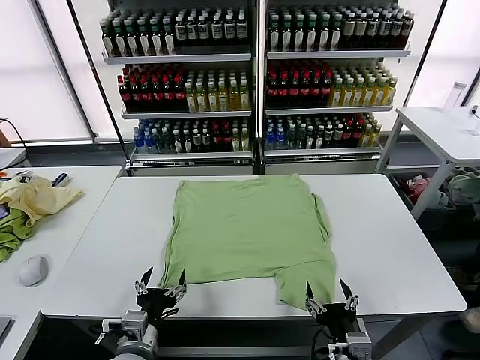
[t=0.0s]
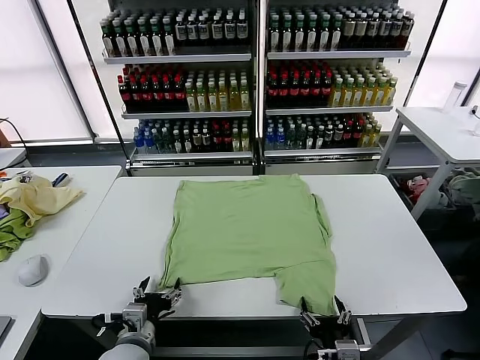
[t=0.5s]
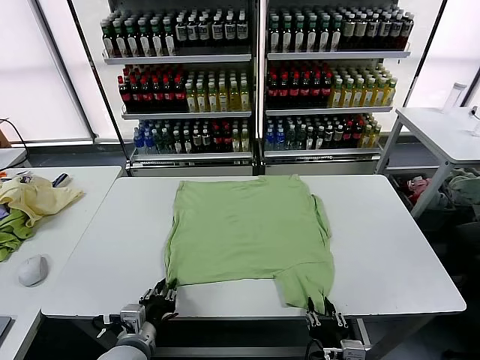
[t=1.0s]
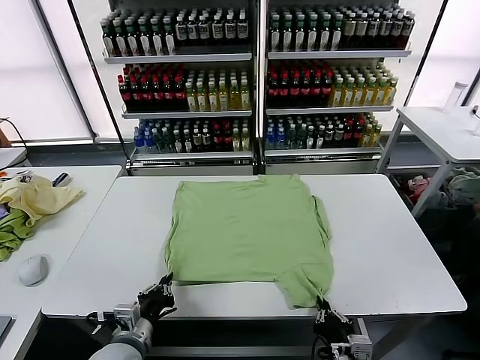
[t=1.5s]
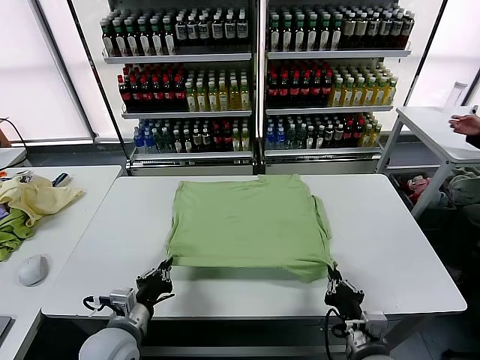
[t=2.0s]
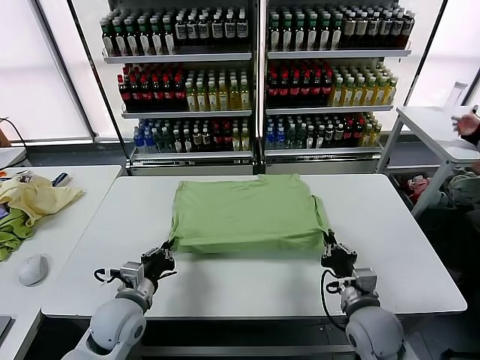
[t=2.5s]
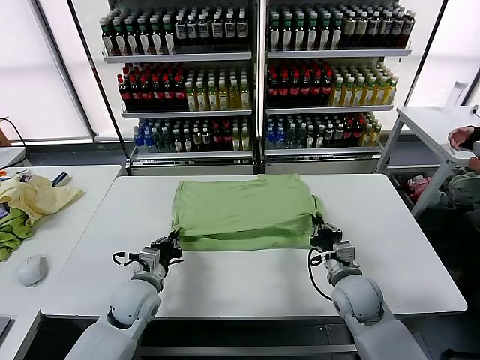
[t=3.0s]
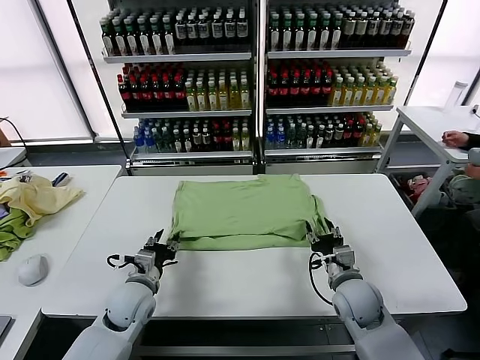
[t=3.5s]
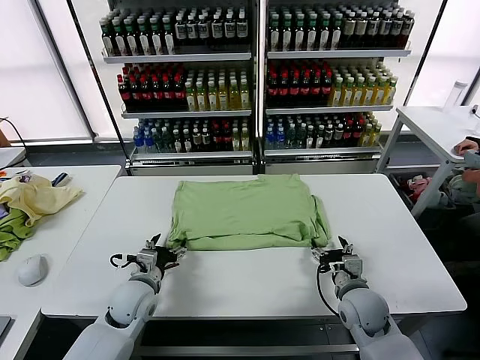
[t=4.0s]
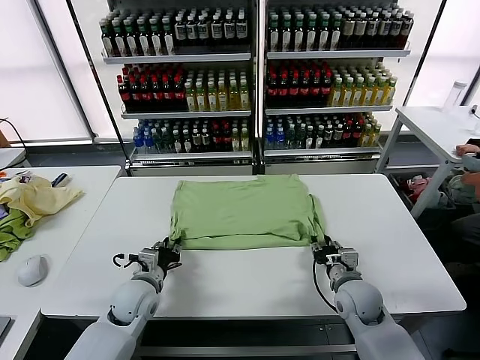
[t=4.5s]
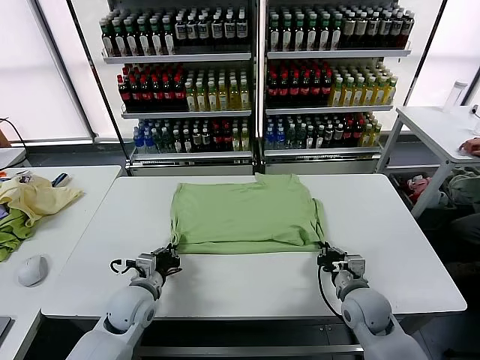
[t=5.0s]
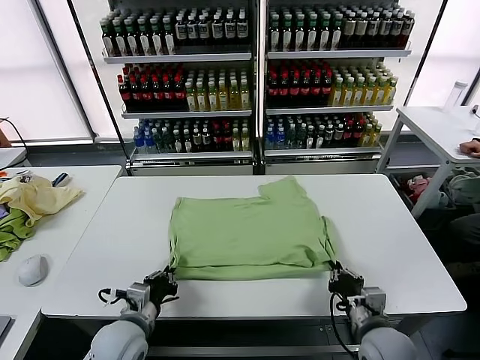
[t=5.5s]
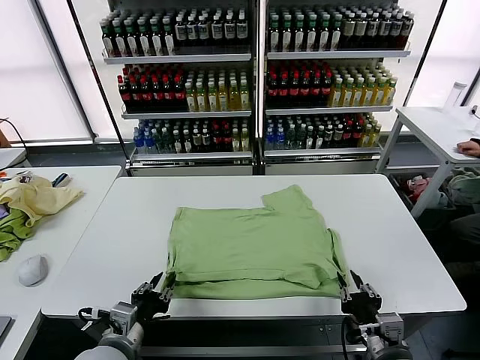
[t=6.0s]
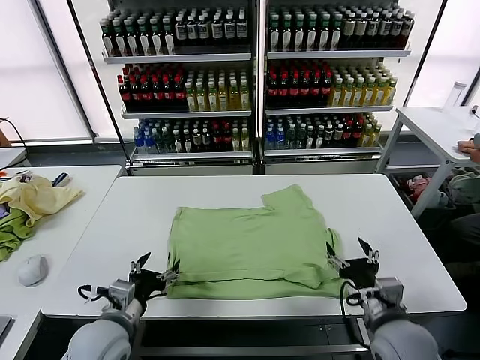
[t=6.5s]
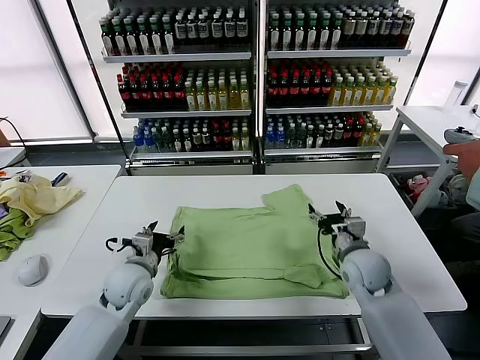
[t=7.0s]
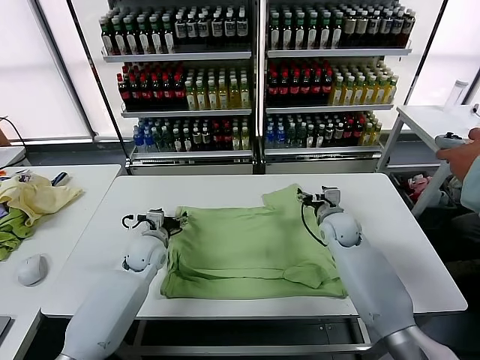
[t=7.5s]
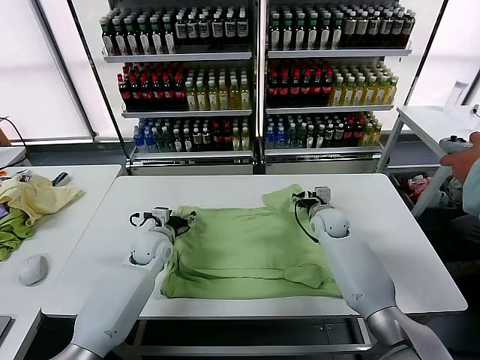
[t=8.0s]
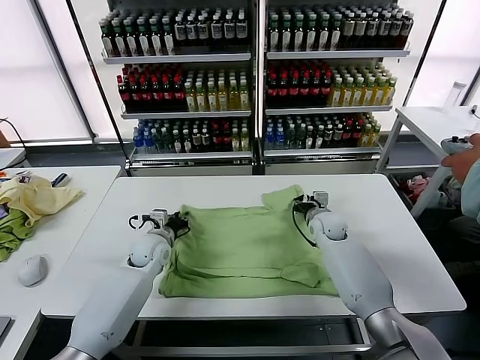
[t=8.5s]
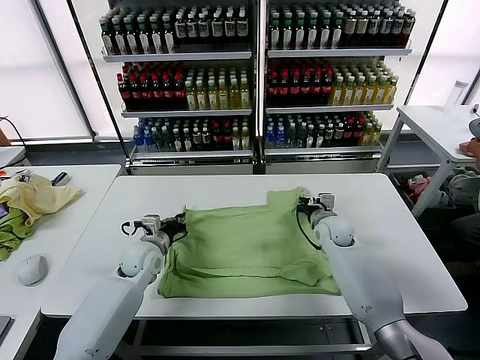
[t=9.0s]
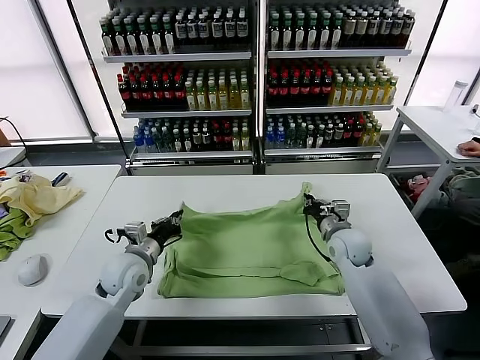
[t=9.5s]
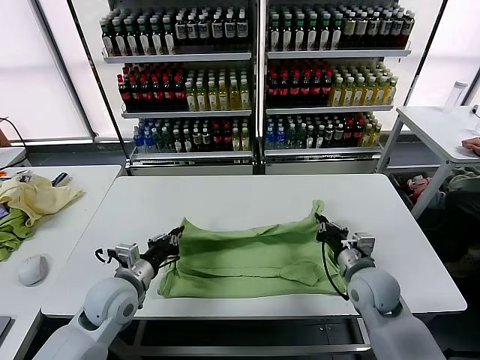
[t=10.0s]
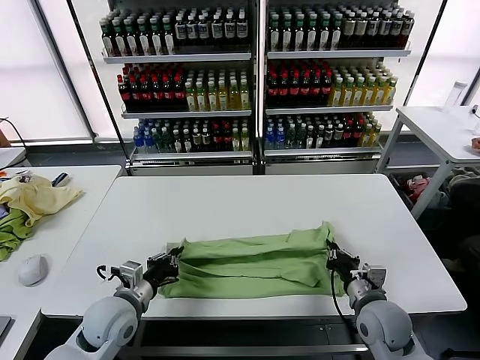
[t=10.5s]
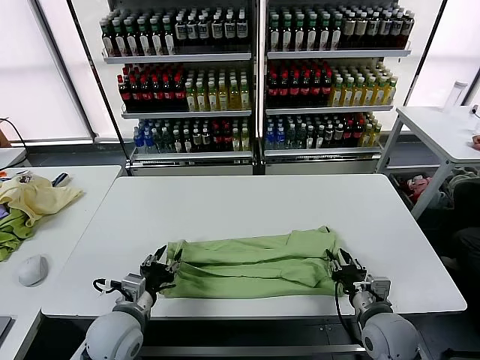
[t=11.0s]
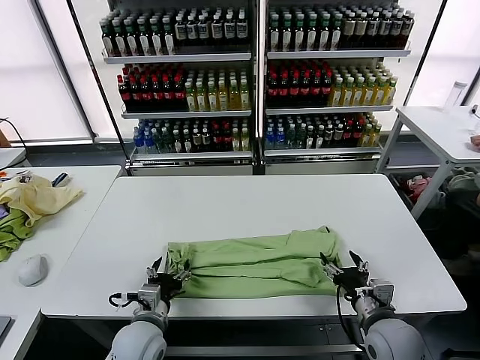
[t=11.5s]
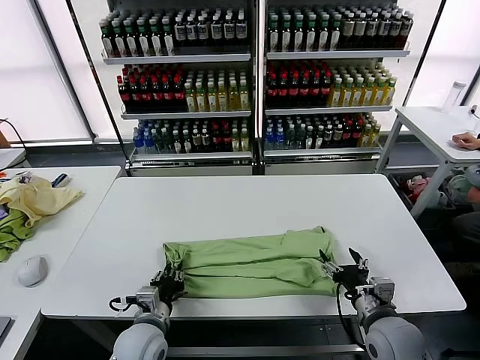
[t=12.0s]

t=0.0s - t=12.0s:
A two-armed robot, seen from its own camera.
Task of the whole recording: fold and organize the clothes.
Step, t=0.0s - t=1.0s: use both grippers simultaneously to clamp the lower edge of the clothing fabric.
Step, t=1.5s - t=3.5s: use both grippers to drag the lower edge of the fabric forward and fold it over the upper edge.
Step, t=4.0s - t=6.0s: Drag the clothes downward with both gripper.
Step, t=6.5s - t=8.5s: use both grippers simultaneously to clamp the upper edge of the clothing fabric.
Step, t=9.0s - t=11.0s: use both grippers to drag the upper edge of the fabric backward and fold it over the lower edge.
Step, t=11.5s - t=12.0s: use the left gripper to clamp the left edge of the fabric.
t=2.0s - t=4.0s: The grippers both shift forward by about 10 cm. The right gripper opens its fingers, while the left gripper opens up.
t=4.0s - t=6.0s: The left gripper travels backward by roughly 15 cm, and closes up. The right gripper heads backward and upward, covering about 20 cm, and closes and opens again.
t=6.0s - t=8.0s: Both grippers move forward, roughly 35 cm. The left gripper opens its fingers.
t=8.0s - t=10.0s: Both grippers move backward, roughly 20 cm. The right gripper closes its fingers. The left gripper closes its fingers.
t=10.0s - t=12.0s: The left gripper is displaced downward, backward and to the right by about 10 cm, and opens, then closes once more. The right gripper goes approximately 10 cm backward, and opens.

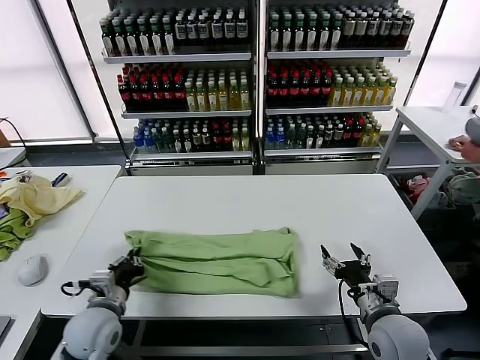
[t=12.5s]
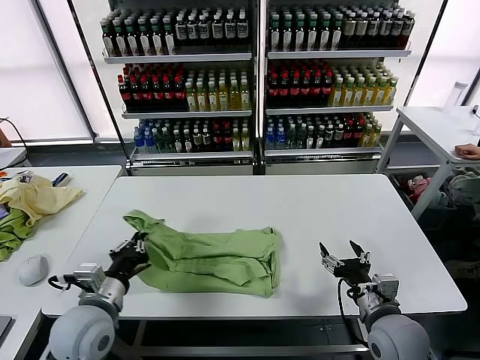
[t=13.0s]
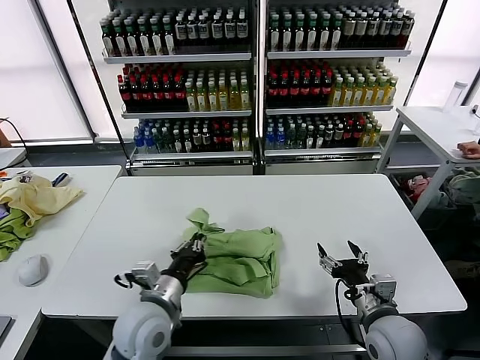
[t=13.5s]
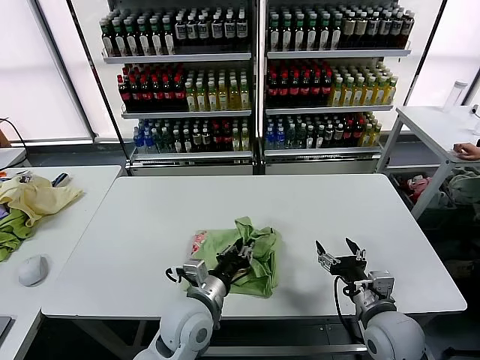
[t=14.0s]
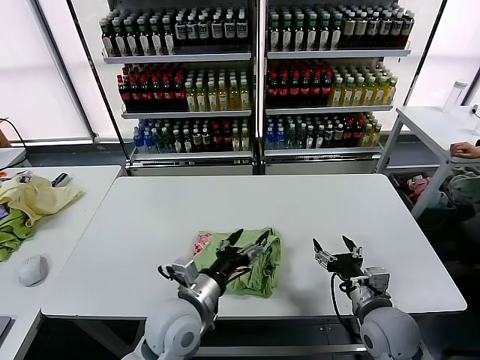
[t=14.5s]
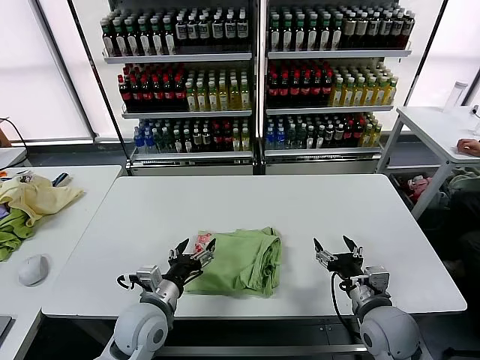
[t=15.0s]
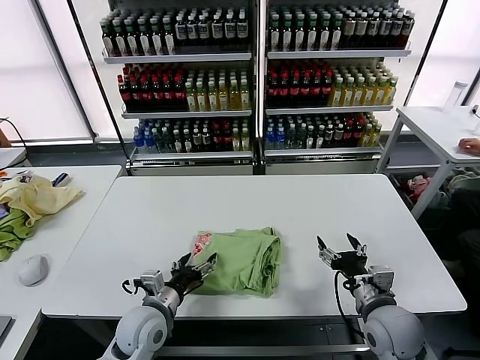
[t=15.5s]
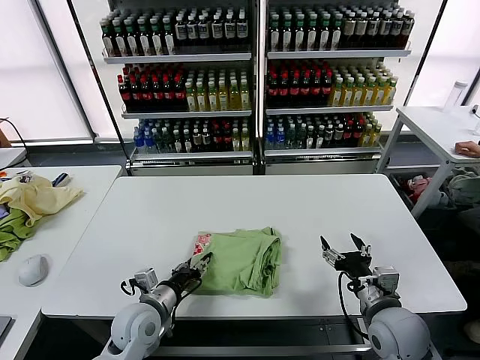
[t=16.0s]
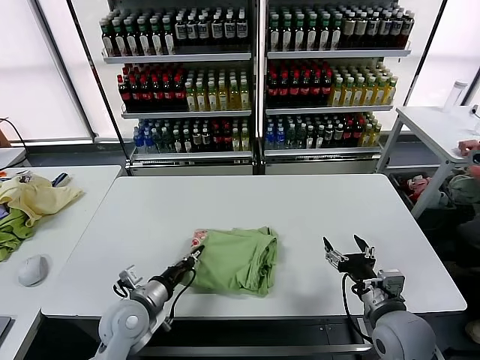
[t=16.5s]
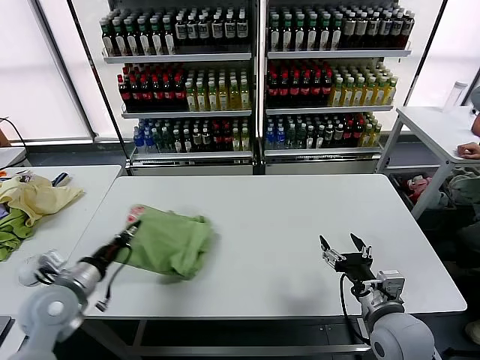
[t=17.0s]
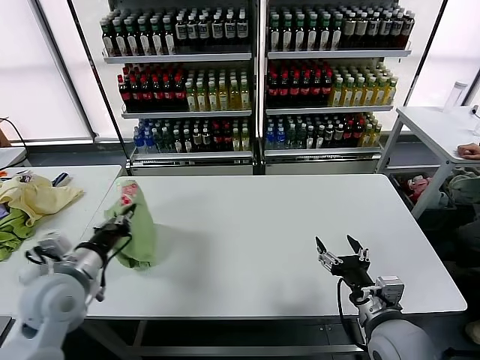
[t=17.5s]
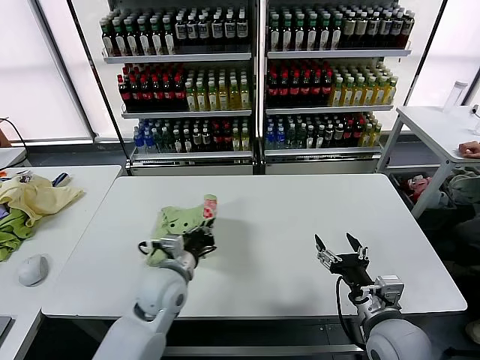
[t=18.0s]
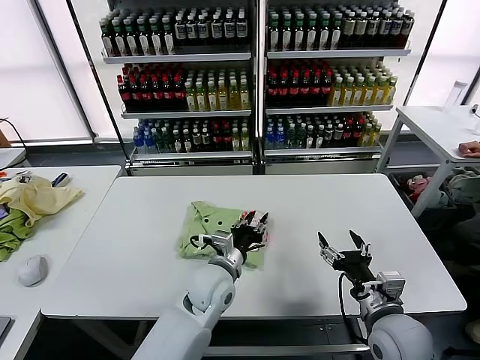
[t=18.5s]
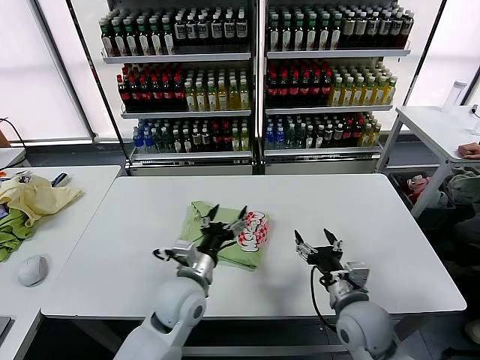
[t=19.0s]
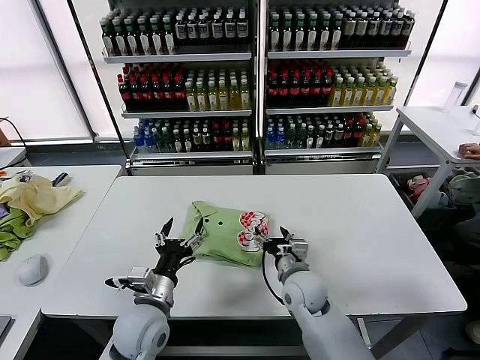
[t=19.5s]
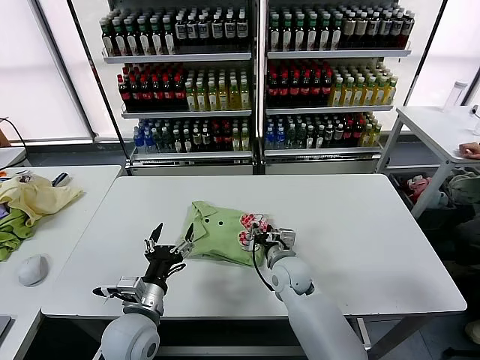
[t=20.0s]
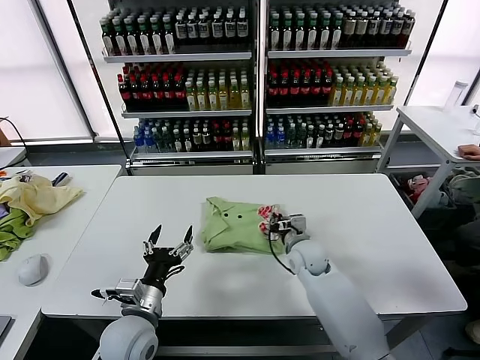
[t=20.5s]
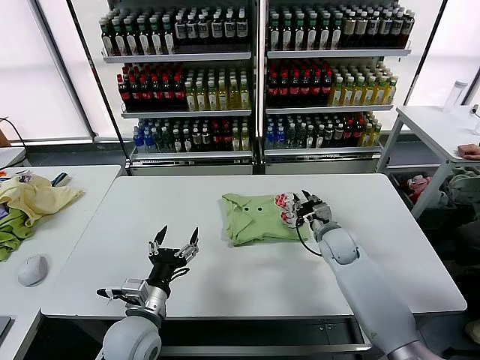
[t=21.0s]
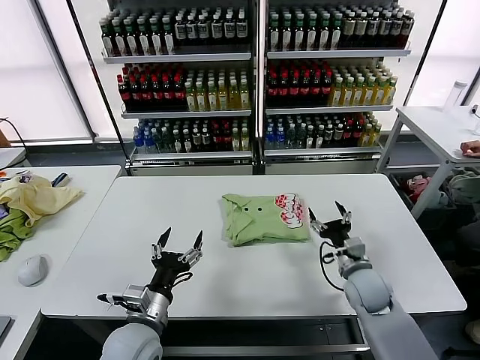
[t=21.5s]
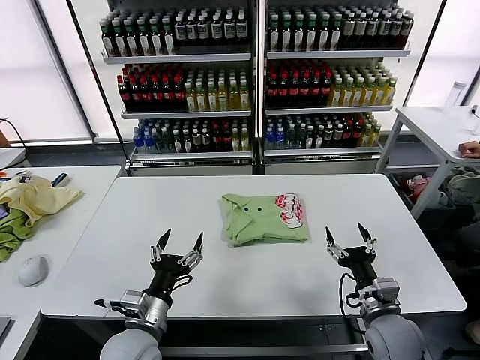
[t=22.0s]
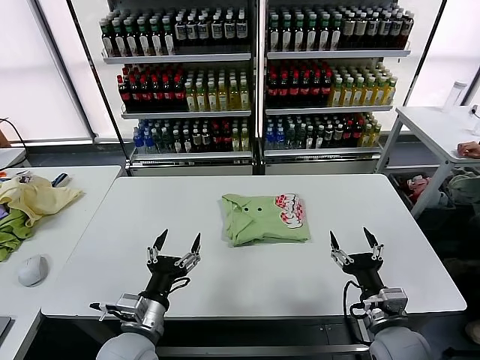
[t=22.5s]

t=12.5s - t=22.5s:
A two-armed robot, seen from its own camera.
Task of the whole recording: fold and organize the clothes.
Step, t=12.5s - t=14.0s: use the left gripper to drag the left edge of the fabric to the left and folds it over the right edge.
Step, t=14.5s - t=18.5s: Flip the folded clothes over with left gripper.
Step, t=19.0s - t=21.0s: Drag the clothes to the center of the table.
t=12.5s - t=14.5s: The left gripper heads to the right, covering some 15 cm, and opens up.
t=14.5s - t=16.5s: The left gripper is displaced to the left and downward by roughly 15 cm, and closes.
t=16.5s - t=18.5s: The left gripper goes approximately 15 cm to the right.
t=18.5s - t=20.5s: The left gripper is displaced to the left and backward by some 15 cm, and opens up. The right gripper travels forward and to the left by approximately 25 cm, and closes up.
t=20.5s - t=22.5s: The right gripper is displaced backward and to the right by approximately 25 cm, and opens its fingers.
